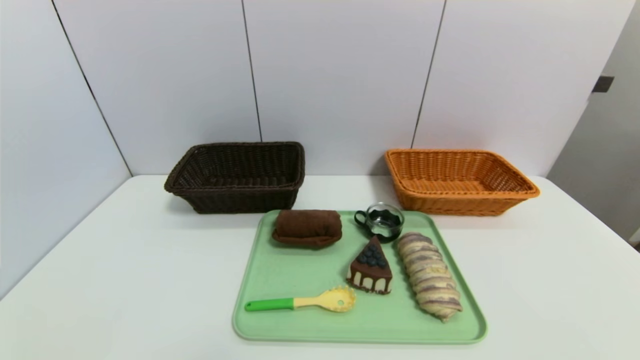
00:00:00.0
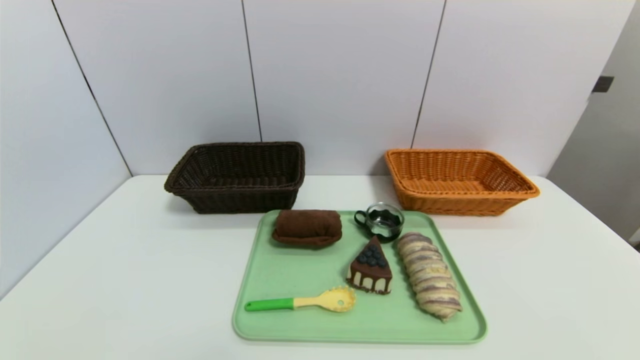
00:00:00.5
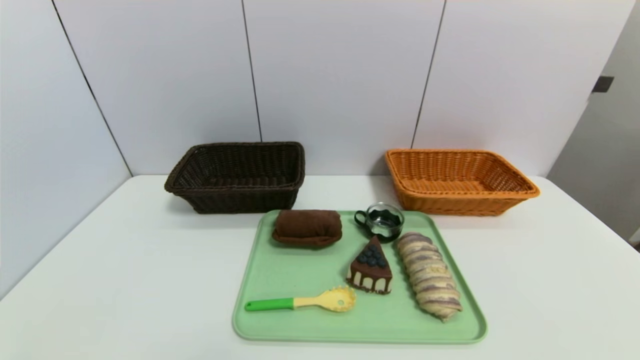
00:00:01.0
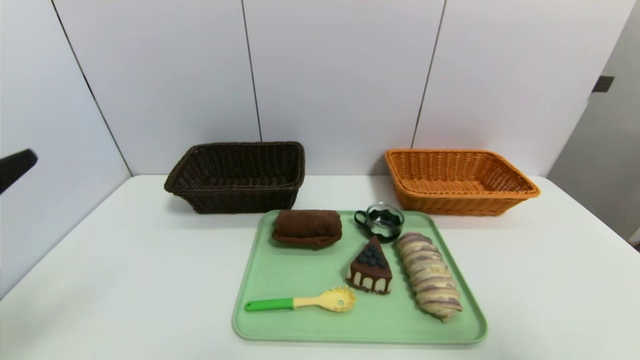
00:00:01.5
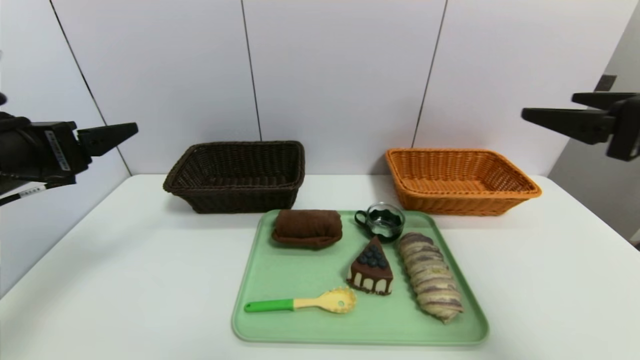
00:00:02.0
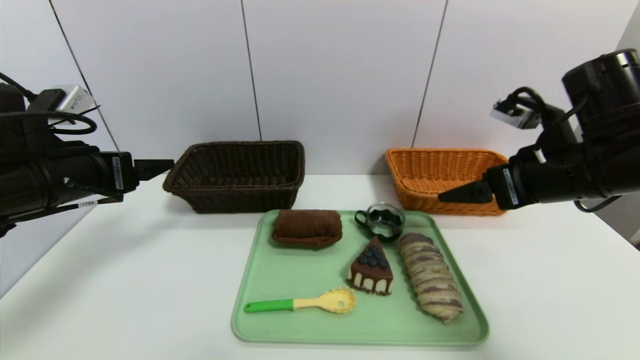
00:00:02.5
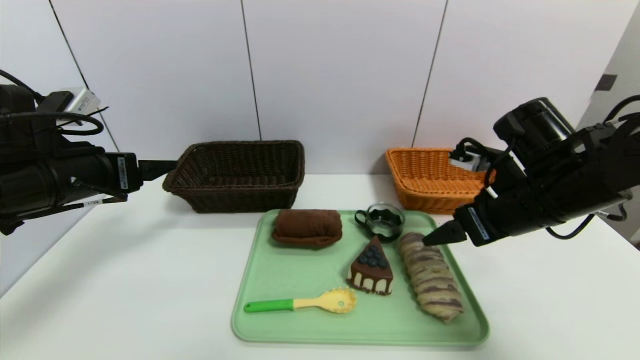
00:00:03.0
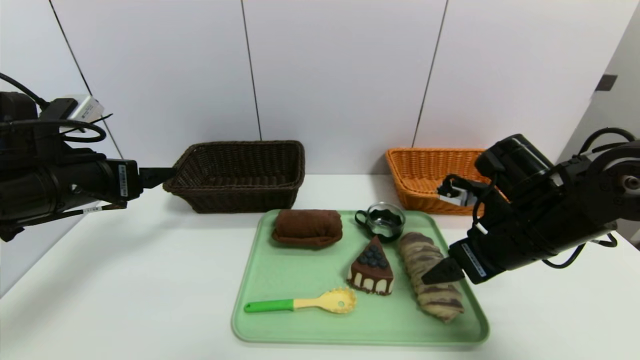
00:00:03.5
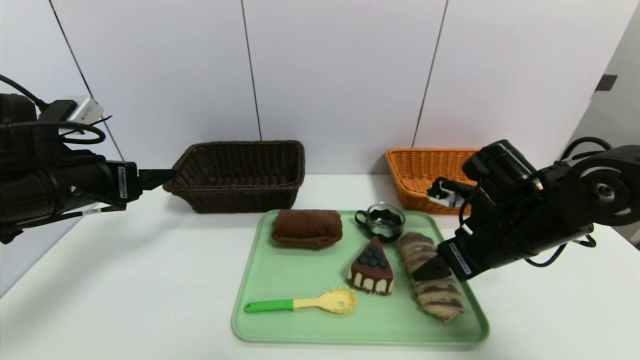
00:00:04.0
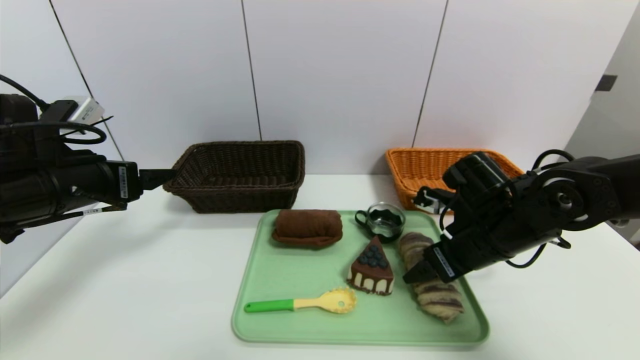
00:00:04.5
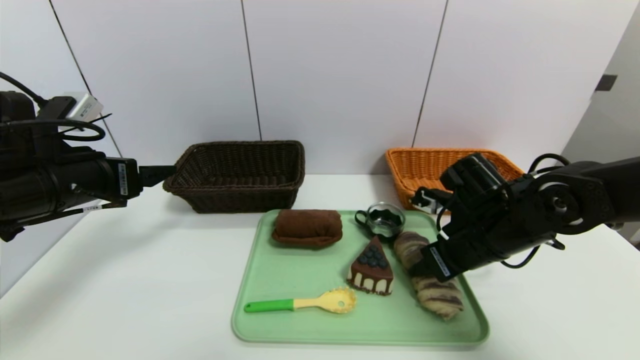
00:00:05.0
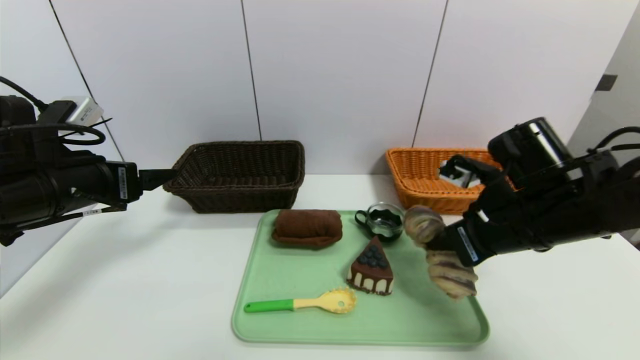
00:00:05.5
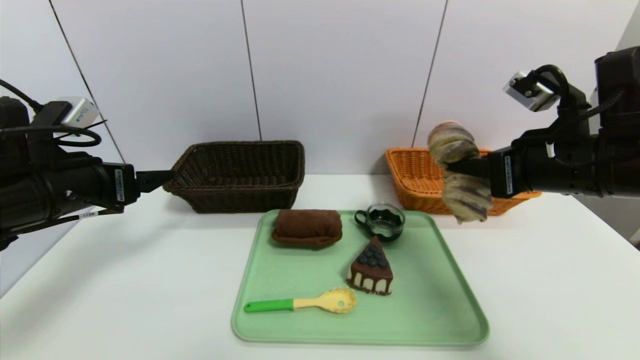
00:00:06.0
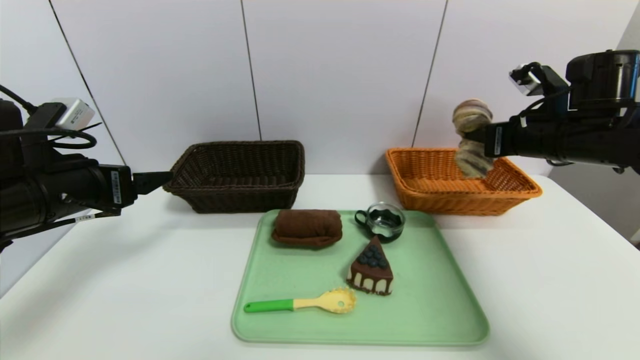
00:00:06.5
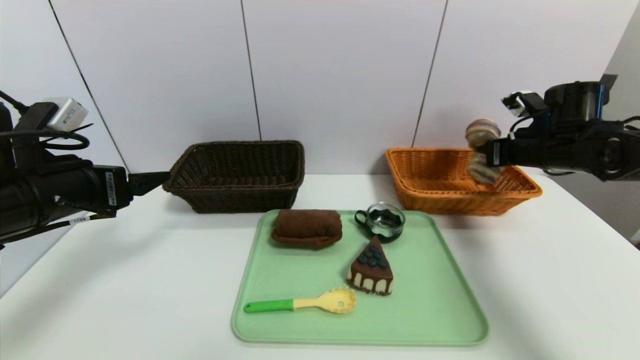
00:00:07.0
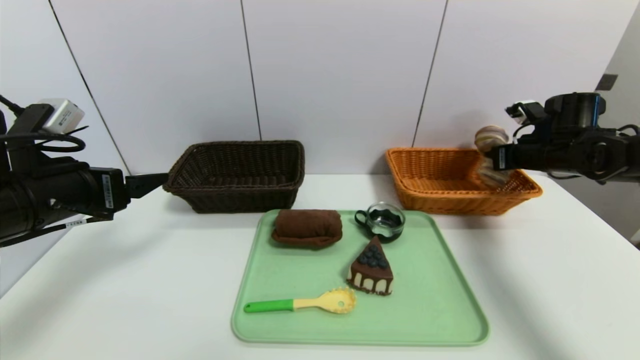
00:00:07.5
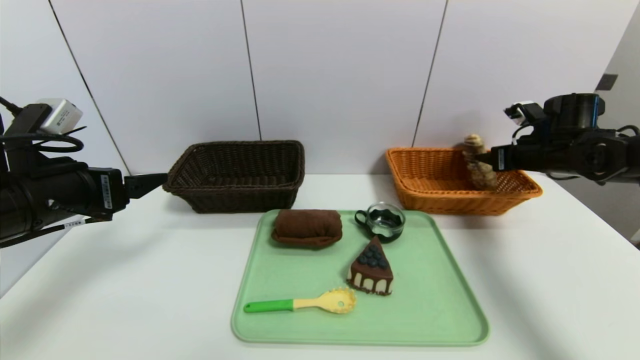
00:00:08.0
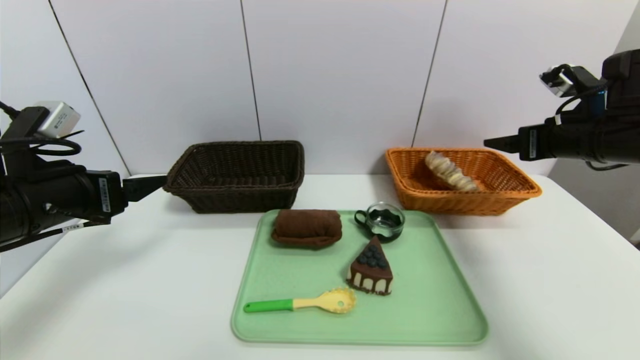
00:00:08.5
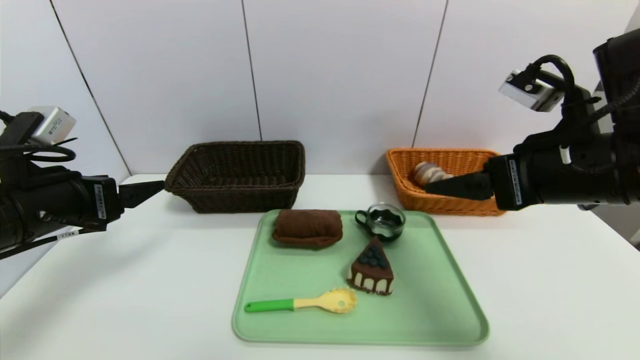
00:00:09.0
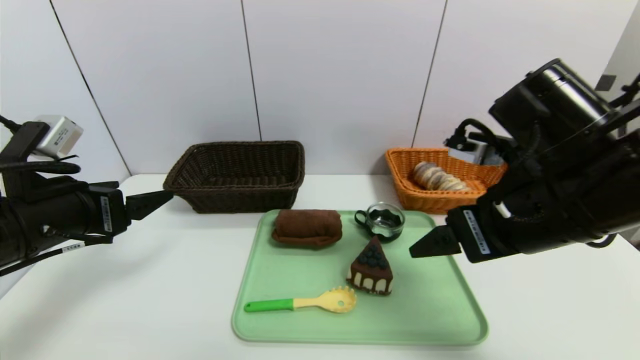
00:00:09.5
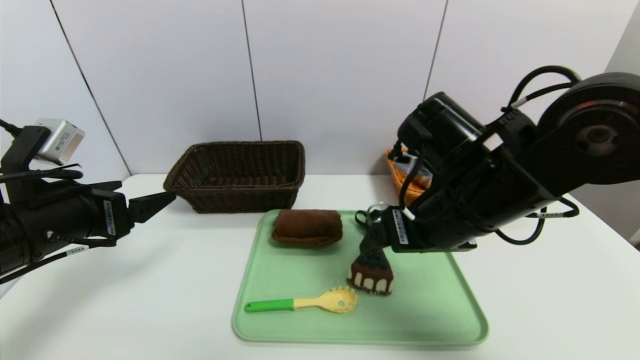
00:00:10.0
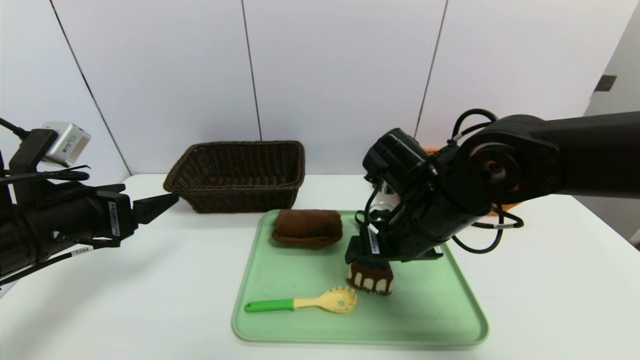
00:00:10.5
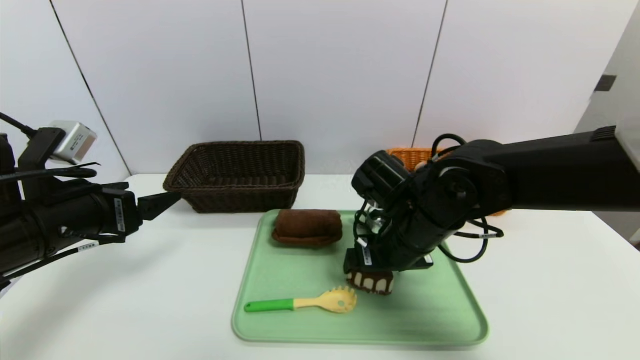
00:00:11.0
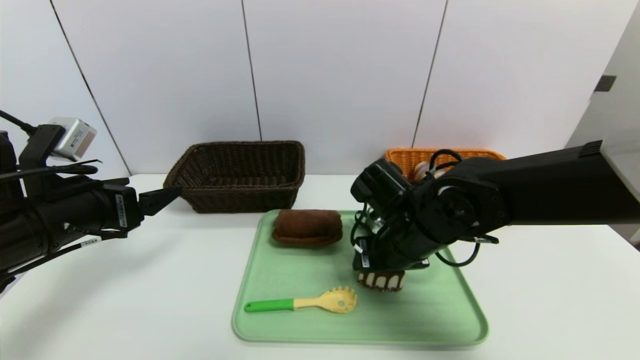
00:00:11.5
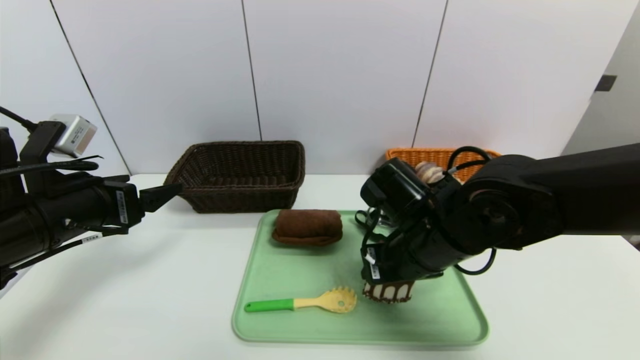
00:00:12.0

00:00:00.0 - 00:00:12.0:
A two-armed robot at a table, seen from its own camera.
Task of the whole recording: place the food in the right basket with the right gripper, and place the non food items in the left basket with the left gripper.
Step, 00:00:00.0 - 00:00:08.5: Grasp the long bread and put it in the right basket.
00:00:00.0 - 00:00:02.0: The left gripper travels forward and upward by some 30 cm, while the right gripper moves upward and forward, approximately 30 cm.
00:00:02.0 - 00:00:04.0: The left gripper goes some 5 cm forward. The right gripper moves downward, to the left and forward, about 20 cm.
00:00:04.0 - 00:00:06.0: The right gripper is displaced upward by about 10 cm, and closes up.
00:00:06.0 - 00:00:08.0: The right gripper shifts approximately 25 cm forward, to the right and downward, and opens its fingers.
00:00:08.0 - 00:00:10.0: The right gripper shifts approximately 30 cm to the left and backward, and opens.
00:00:10.0 - 00:00:12.0: The right gripper travels downward by approximately 5 cm, and closes.

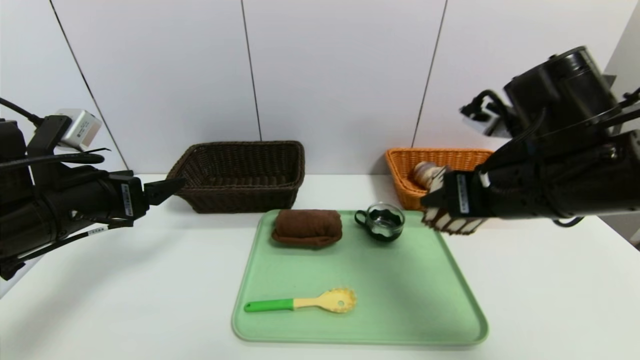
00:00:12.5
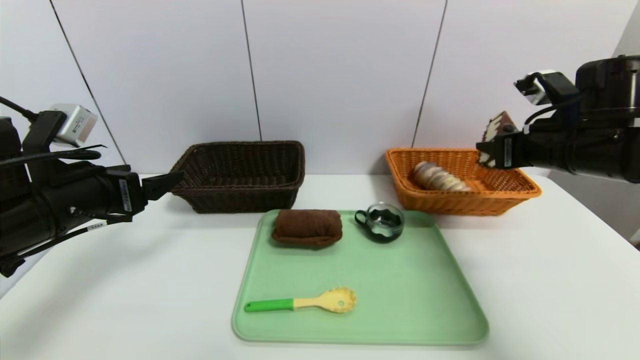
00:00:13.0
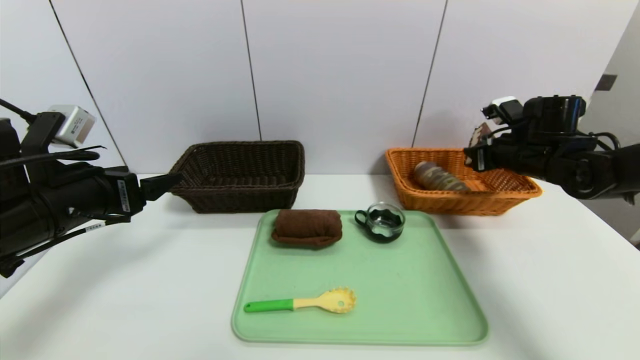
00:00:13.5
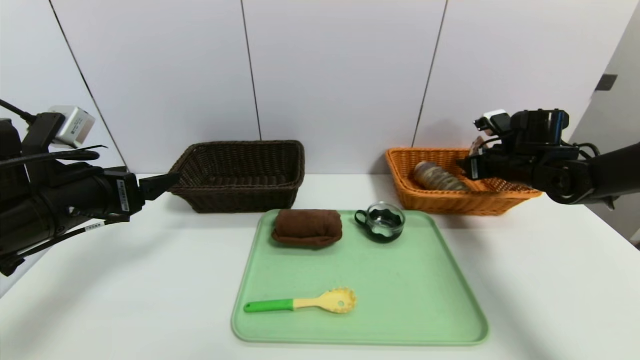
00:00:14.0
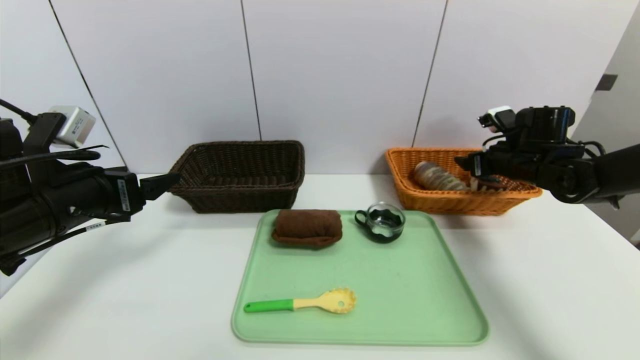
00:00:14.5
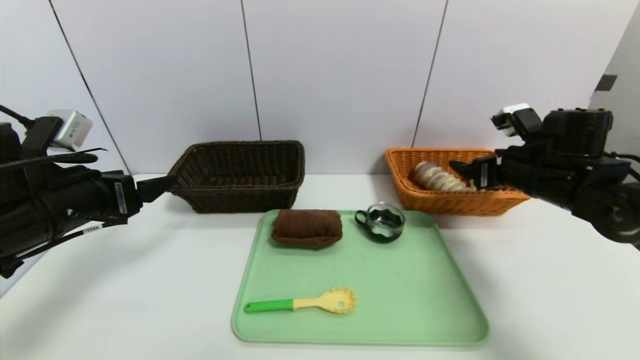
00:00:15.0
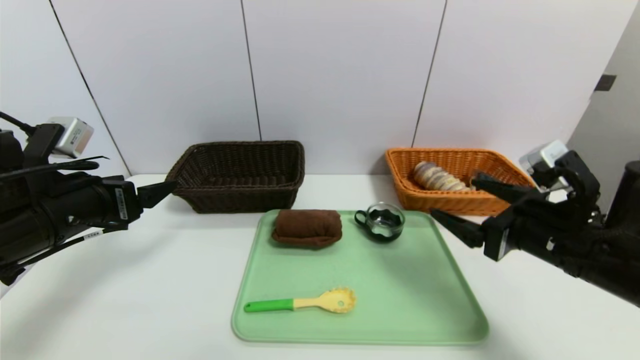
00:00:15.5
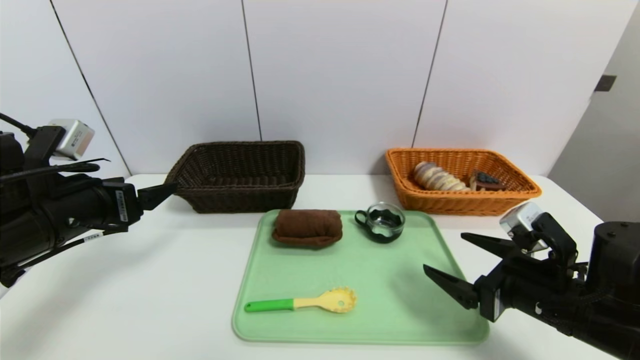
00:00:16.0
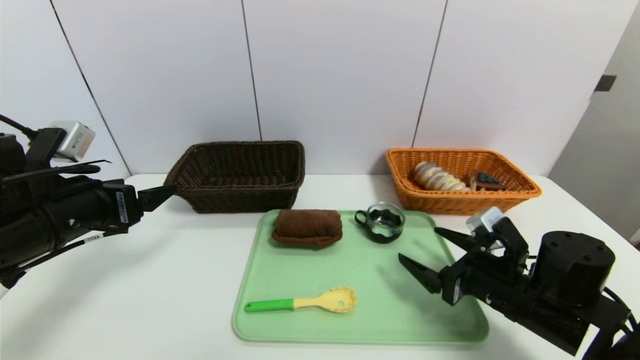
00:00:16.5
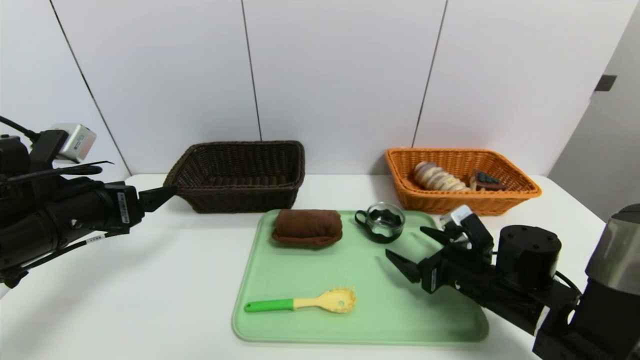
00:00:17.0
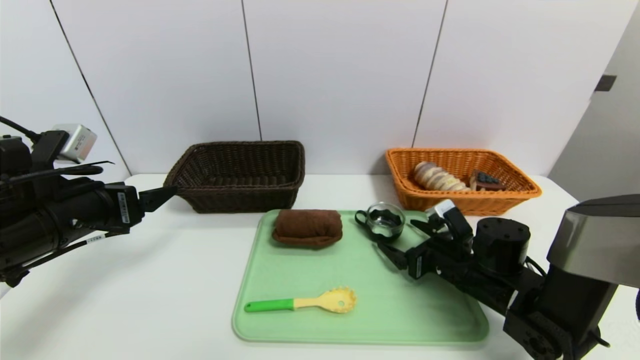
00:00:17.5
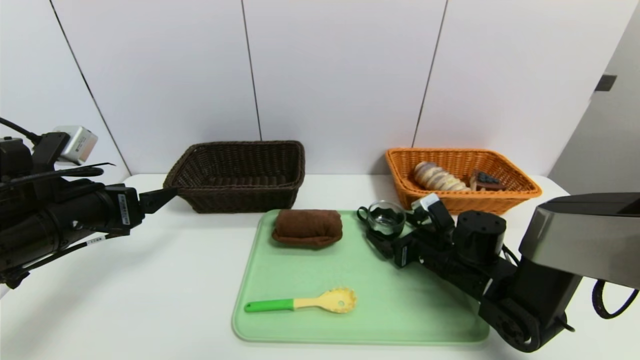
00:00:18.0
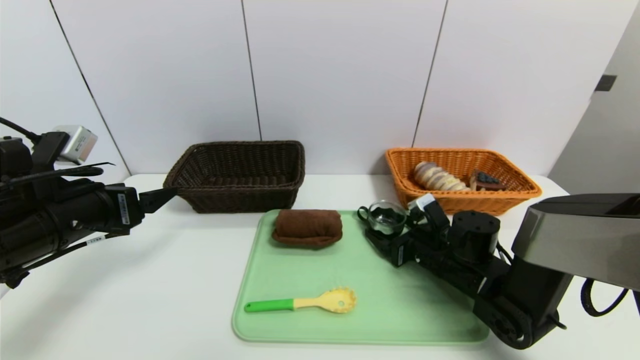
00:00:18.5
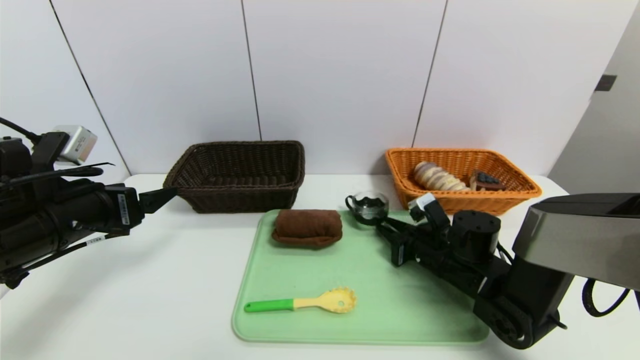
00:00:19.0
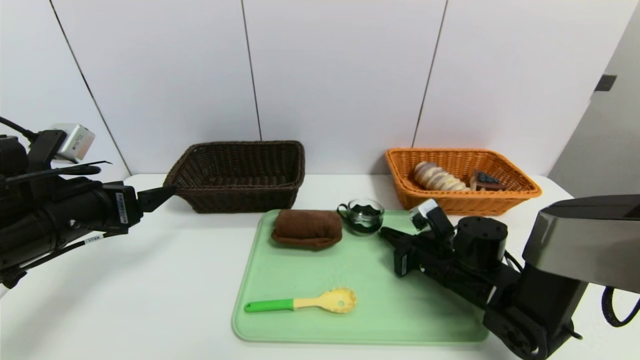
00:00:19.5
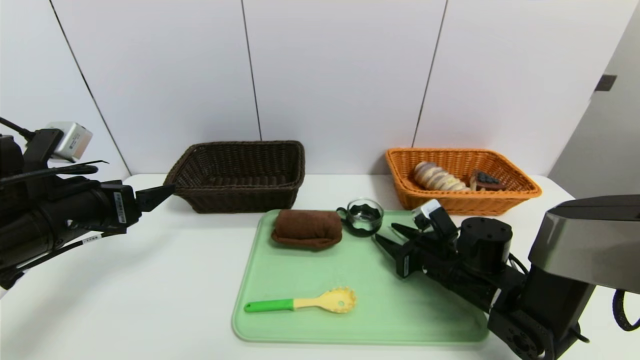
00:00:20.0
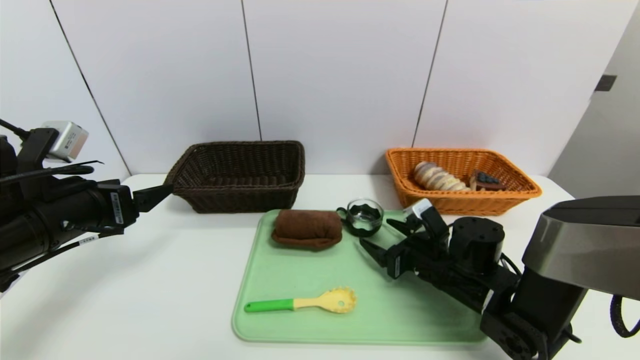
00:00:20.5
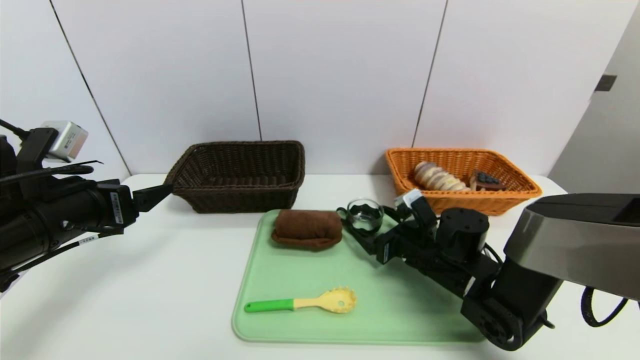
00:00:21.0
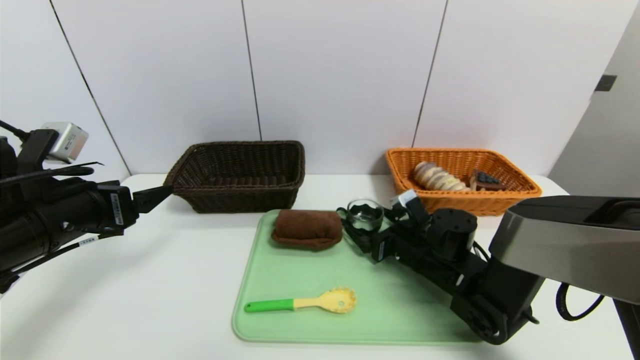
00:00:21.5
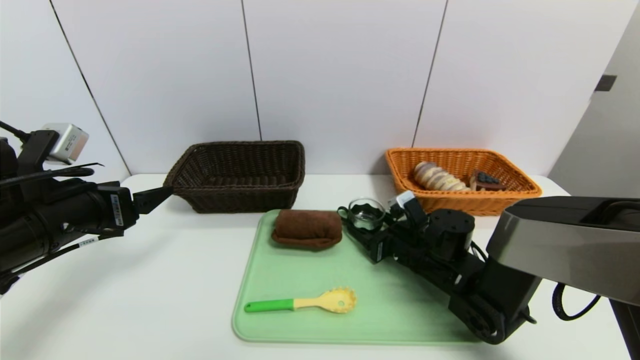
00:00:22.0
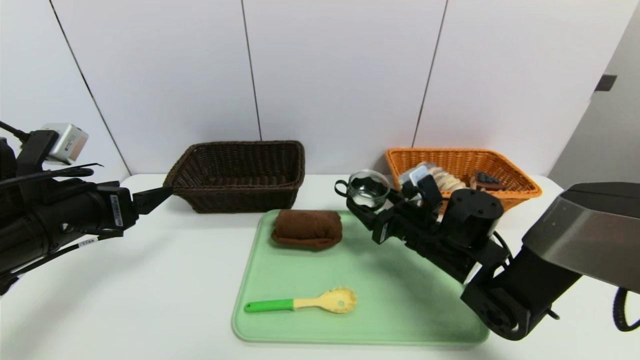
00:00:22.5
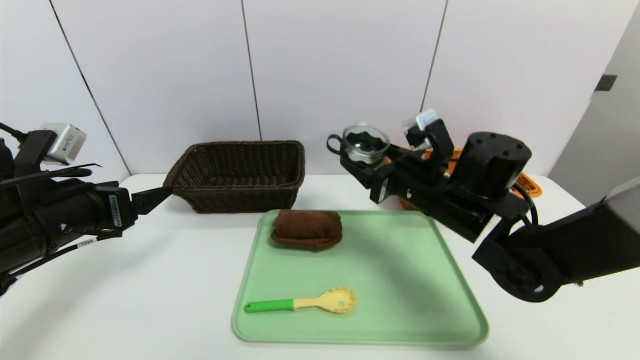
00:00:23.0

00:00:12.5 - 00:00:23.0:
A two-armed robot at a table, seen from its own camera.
Task of the whole recording: place the food in the right basket with the right gripper, and place the non food items in the left basket with the left gripper.
Step, 00:00:12.5 - 00:00:14.5: Grasp the triangle cake and put it in the right basket.
00:00:12.5 - 00:00:14.5: The right gripper is displaced forward, to the right and downward by roughly 25 cm, and opens up.
00:00:14.5 - 00:00:16.5: The right gripper is displaced backward, to the left and downward by approximately 25 cm.
00:00:16.5 - 00:00:19.0: The right gripper goes roughly 10 cm forward, and closes.
00:00:19.0 - 00:00:21.0: The right gripper opens its fingers.
00:00:21.0 - 00:00:23.0: The right gripper shifts roughly 15 cm upward.
